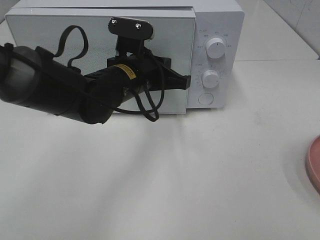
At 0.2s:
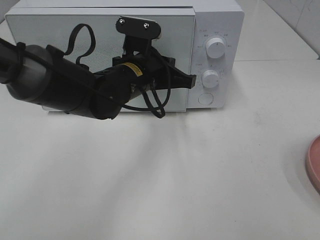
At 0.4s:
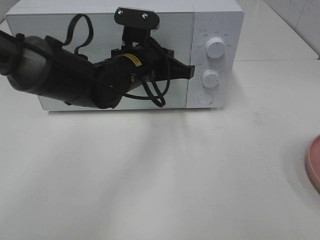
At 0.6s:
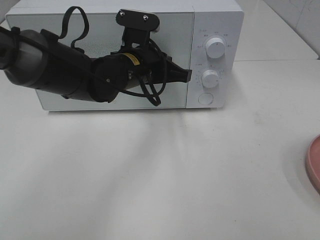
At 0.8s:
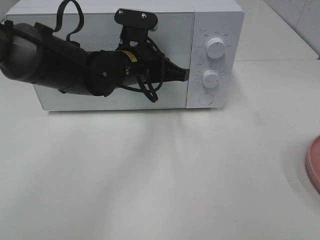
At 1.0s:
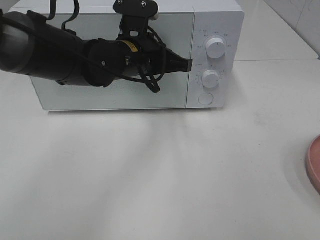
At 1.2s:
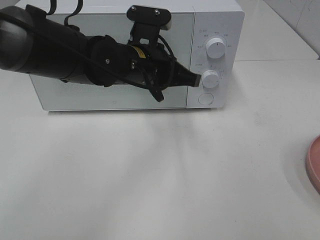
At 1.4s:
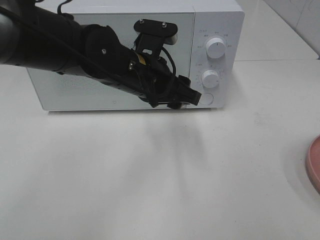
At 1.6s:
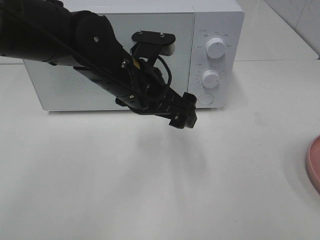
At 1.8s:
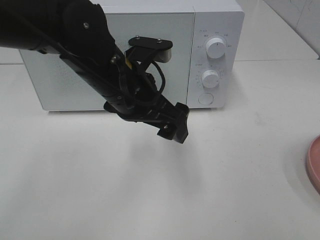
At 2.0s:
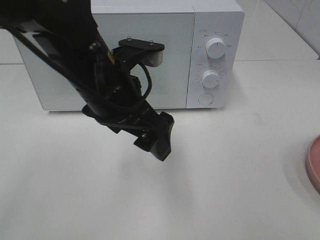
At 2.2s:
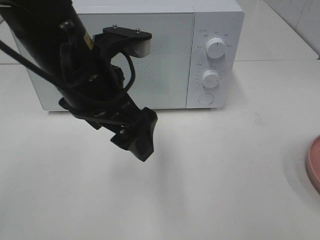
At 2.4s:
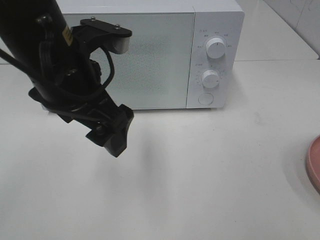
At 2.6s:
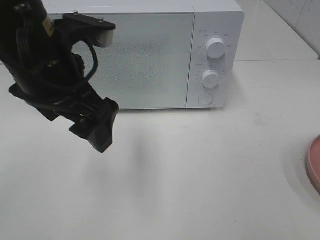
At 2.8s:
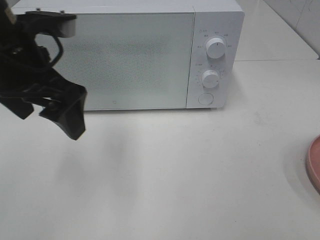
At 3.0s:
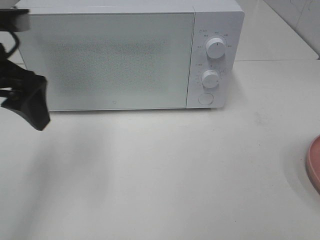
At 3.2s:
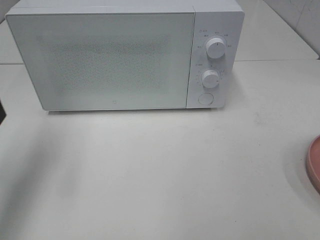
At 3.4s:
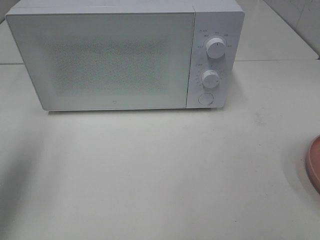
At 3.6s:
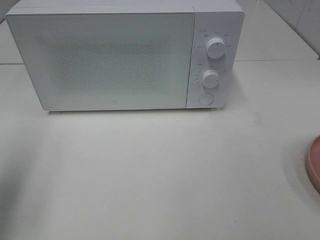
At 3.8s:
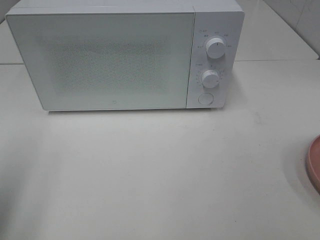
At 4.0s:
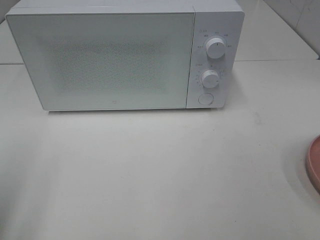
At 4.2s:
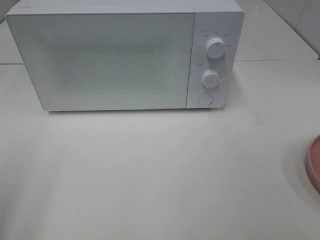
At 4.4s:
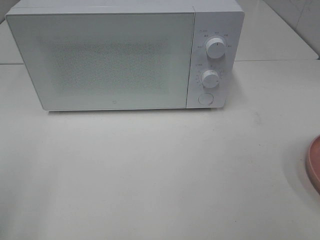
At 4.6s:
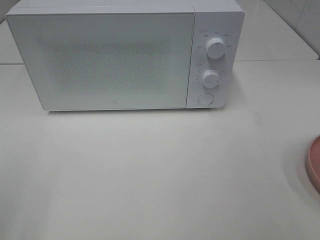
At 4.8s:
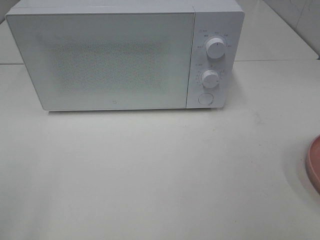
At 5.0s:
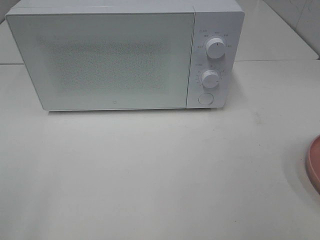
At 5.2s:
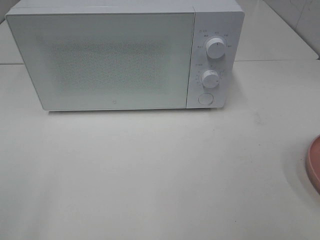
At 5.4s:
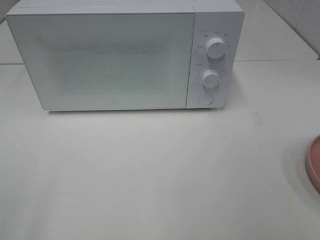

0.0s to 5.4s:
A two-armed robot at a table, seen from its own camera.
Task of the whole recording: Heat the burger.
0.0s to 1.4s: The left gripper opens.
1.4s to 2.8s: The left gripper moves to the left and upward, some 15 cm, and opens.
2.8s to 4.0s: The left gripper travels to the left and backward by approximately 20 cm.

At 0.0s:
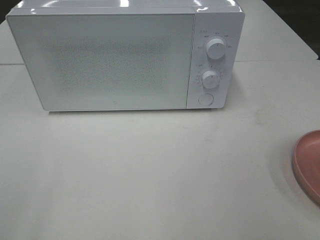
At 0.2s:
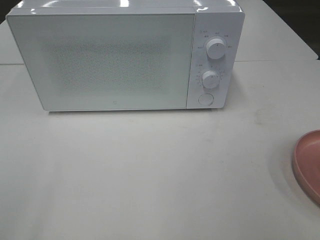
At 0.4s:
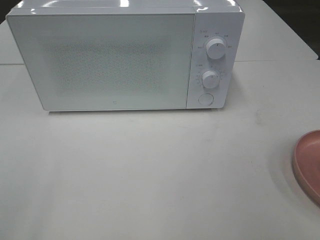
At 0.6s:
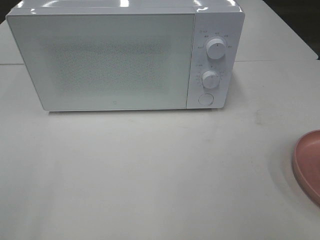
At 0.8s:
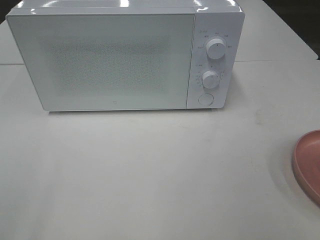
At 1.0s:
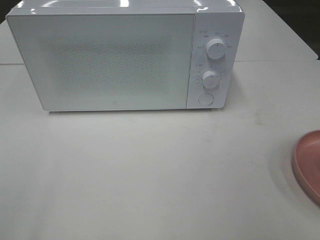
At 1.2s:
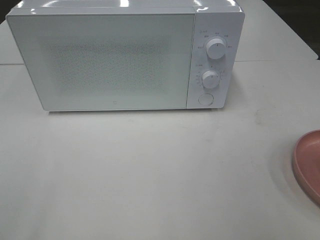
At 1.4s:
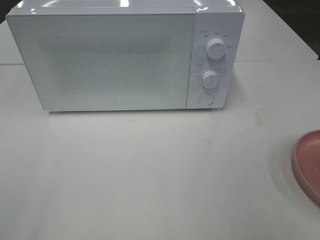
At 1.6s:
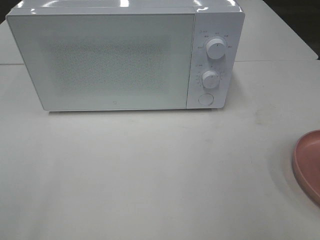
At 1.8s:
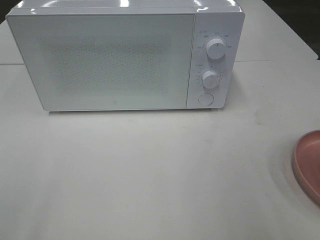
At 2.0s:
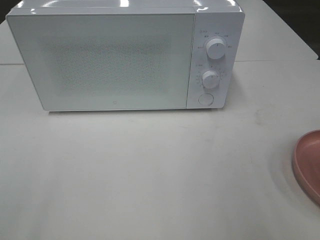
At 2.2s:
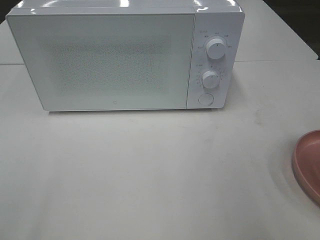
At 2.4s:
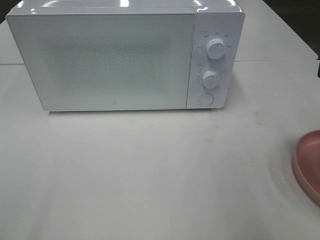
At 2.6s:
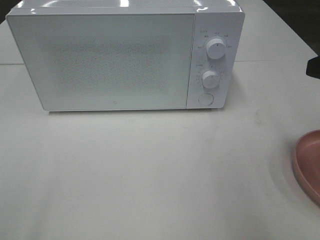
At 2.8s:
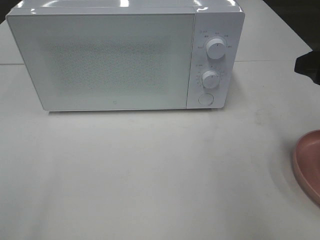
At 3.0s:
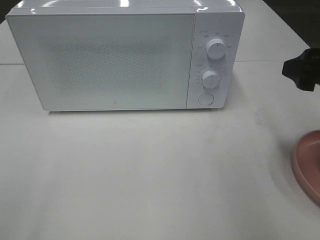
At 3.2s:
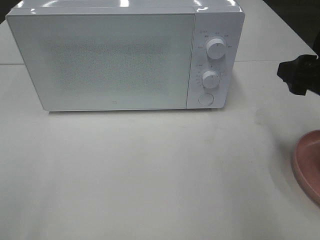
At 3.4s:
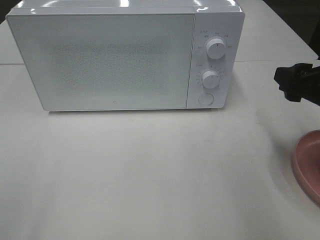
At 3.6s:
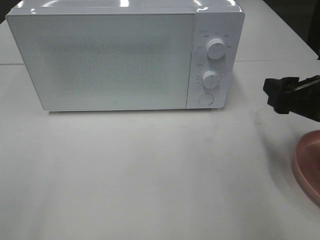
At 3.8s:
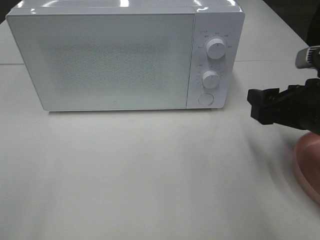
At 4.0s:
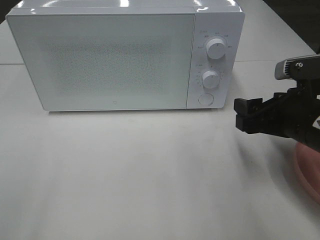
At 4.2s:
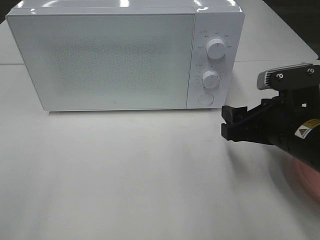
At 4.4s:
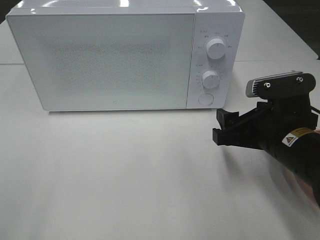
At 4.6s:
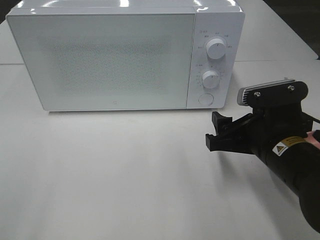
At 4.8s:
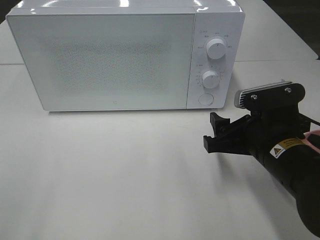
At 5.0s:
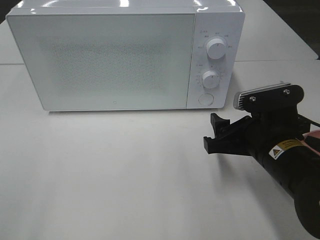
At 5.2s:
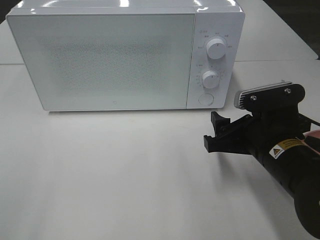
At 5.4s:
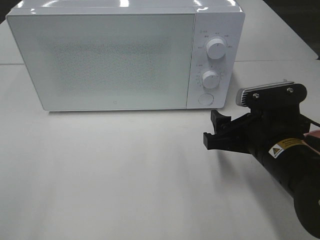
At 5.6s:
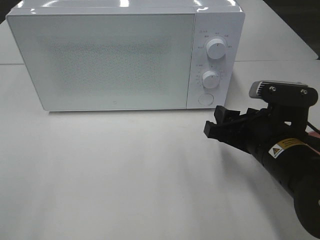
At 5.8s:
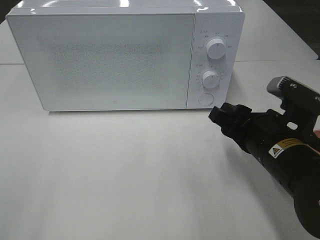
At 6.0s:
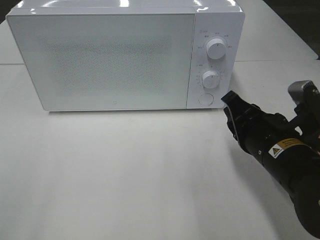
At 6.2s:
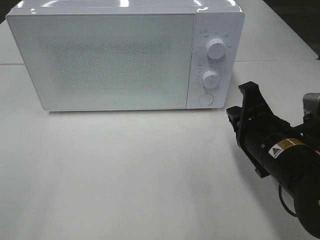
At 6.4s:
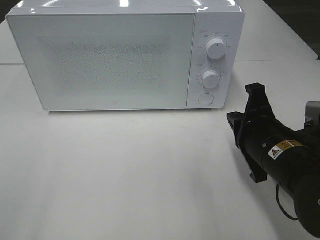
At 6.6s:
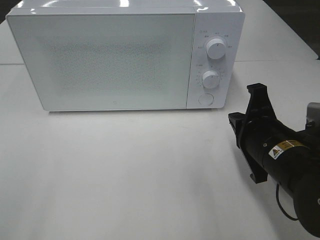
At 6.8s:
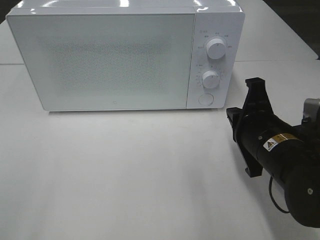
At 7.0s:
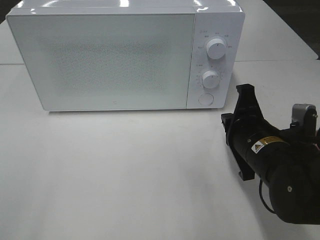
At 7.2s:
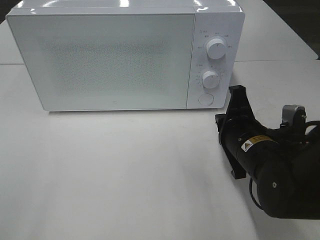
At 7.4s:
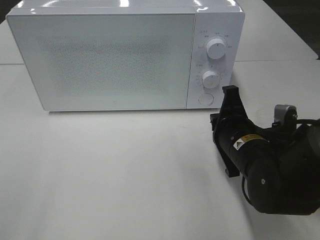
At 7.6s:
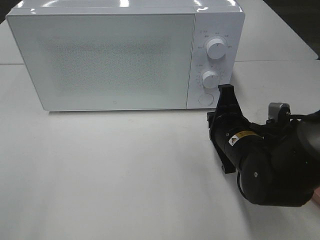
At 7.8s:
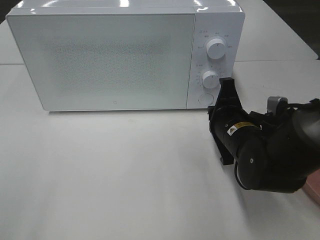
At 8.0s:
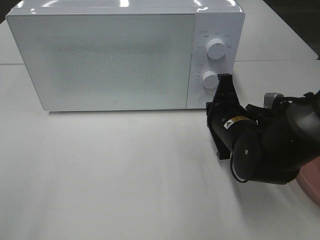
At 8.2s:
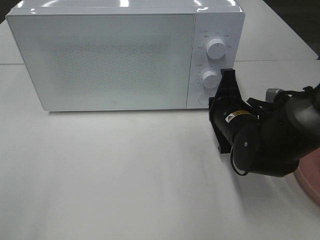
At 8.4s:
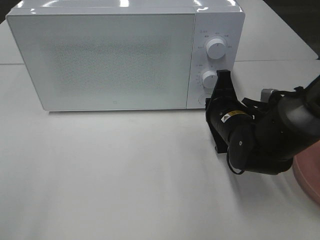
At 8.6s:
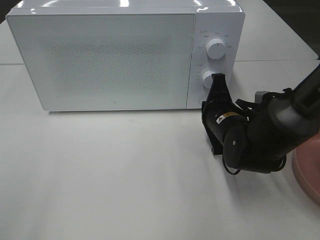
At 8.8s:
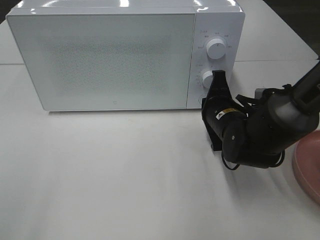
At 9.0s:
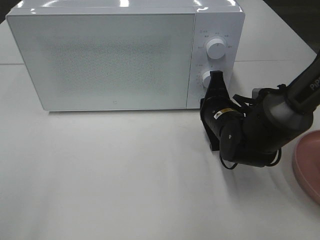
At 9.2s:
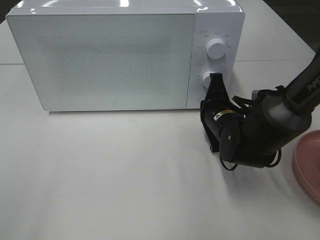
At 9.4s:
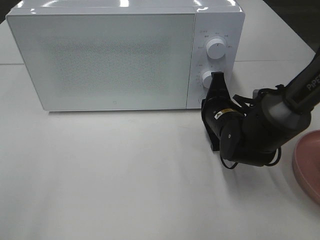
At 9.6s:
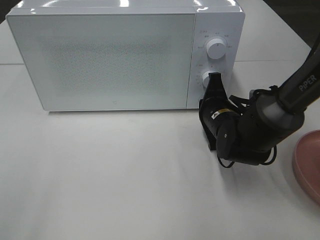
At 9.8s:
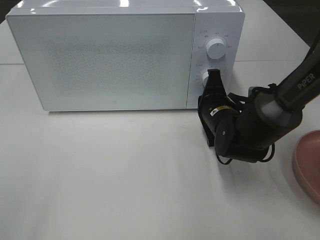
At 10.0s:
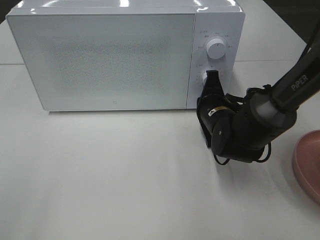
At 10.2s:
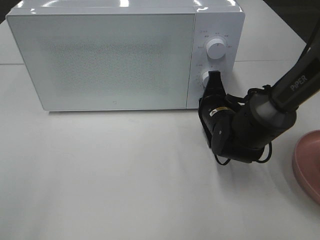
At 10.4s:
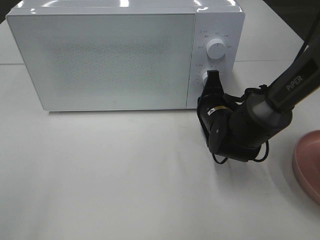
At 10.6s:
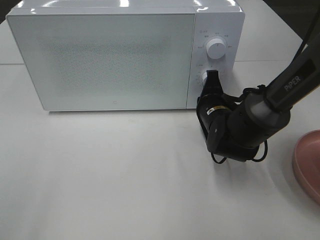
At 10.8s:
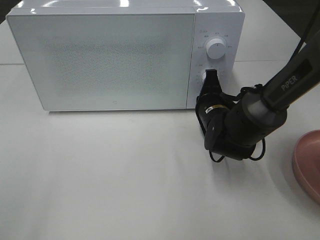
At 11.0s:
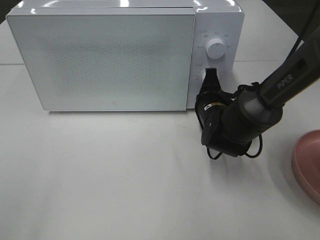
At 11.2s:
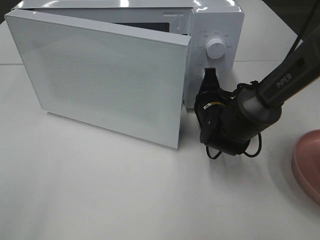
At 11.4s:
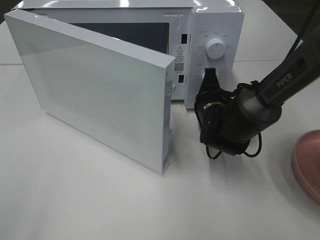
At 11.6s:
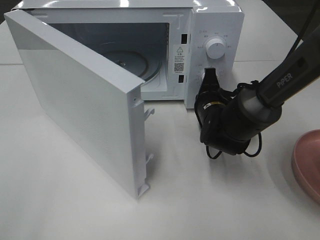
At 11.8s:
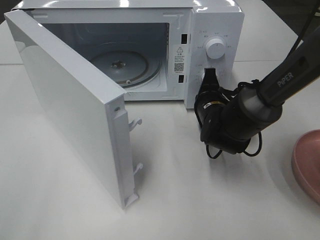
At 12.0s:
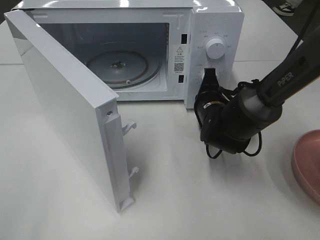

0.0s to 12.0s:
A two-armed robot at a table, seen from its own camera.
Task of the whole recording: Heat the burger.
1.6s to 3.0s: The right gripper travels forward and downward by approximately 15 cm.
3.0s to 4.4s: The right gripper travels downward and to the left by some 15 cm.
4.4s to 6.0s: The right gripper closes up.
6.0s to 7.6s: The right gripper shifts by roughly 5 cm.
7.6s to 9.0s: The right gripper goes approximately 5 cm forward.
9.0s to 10.4s: There are only small adjustments of the grippers.

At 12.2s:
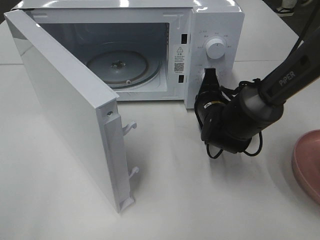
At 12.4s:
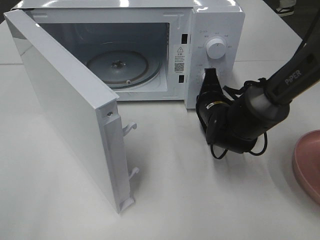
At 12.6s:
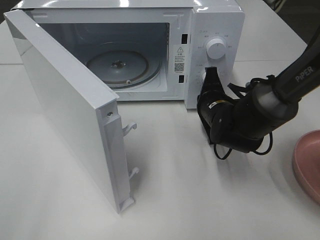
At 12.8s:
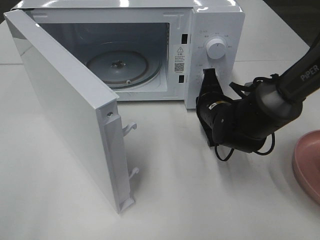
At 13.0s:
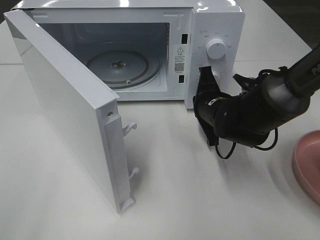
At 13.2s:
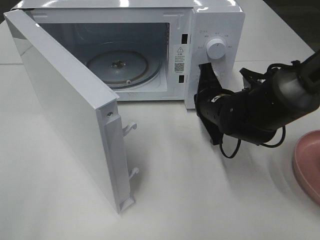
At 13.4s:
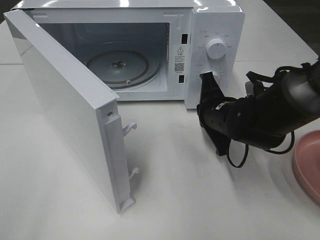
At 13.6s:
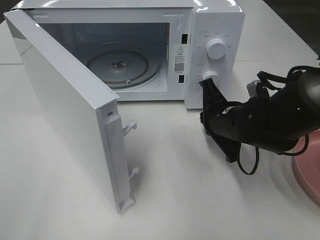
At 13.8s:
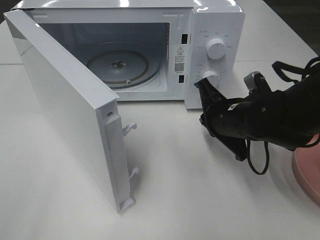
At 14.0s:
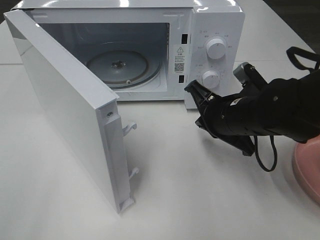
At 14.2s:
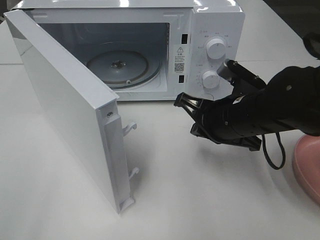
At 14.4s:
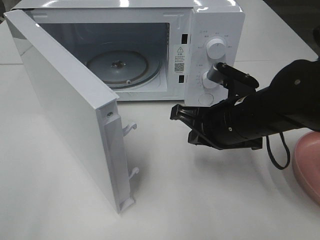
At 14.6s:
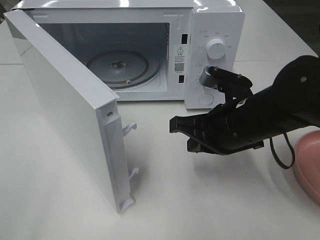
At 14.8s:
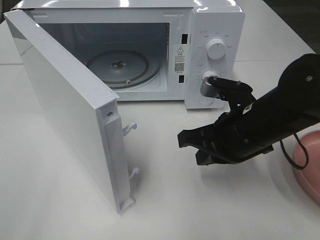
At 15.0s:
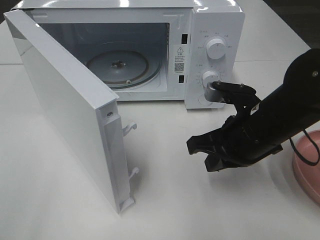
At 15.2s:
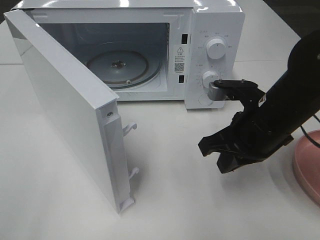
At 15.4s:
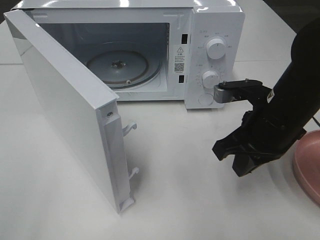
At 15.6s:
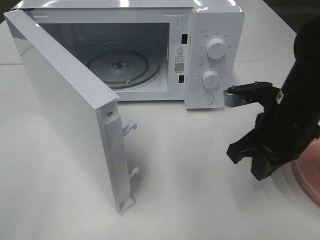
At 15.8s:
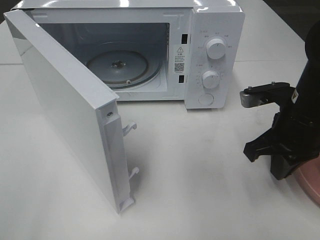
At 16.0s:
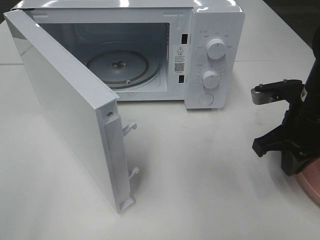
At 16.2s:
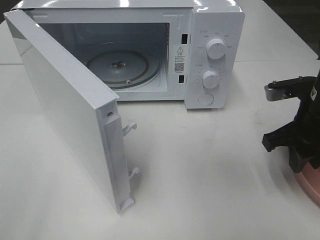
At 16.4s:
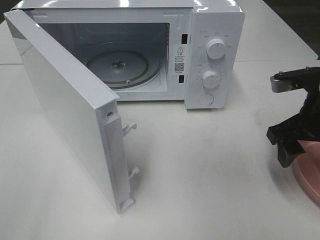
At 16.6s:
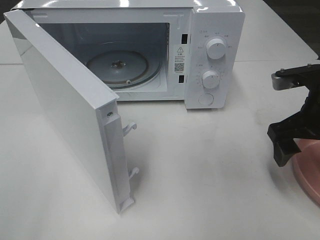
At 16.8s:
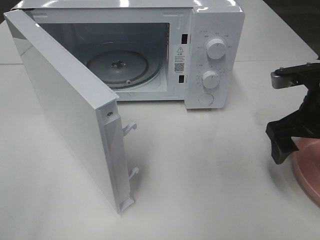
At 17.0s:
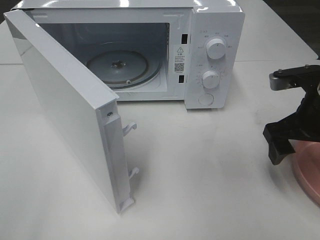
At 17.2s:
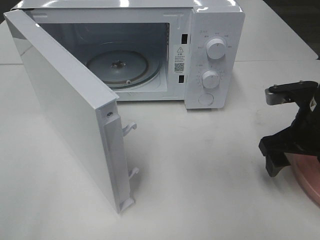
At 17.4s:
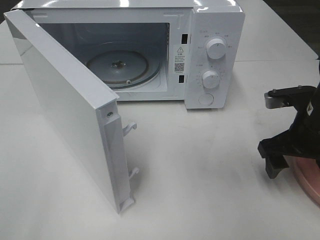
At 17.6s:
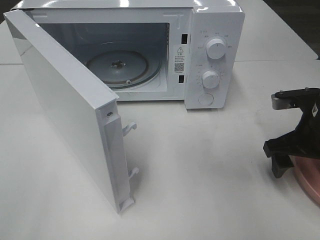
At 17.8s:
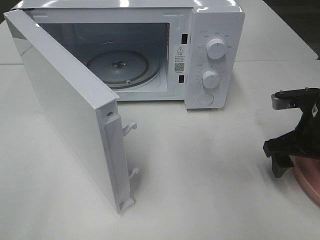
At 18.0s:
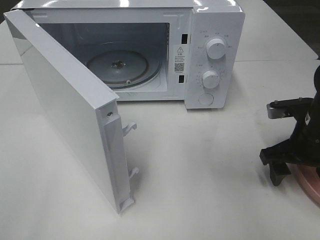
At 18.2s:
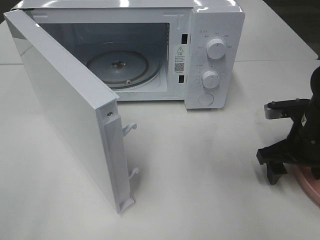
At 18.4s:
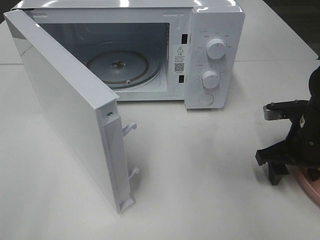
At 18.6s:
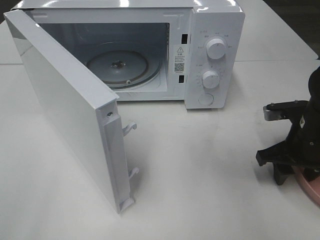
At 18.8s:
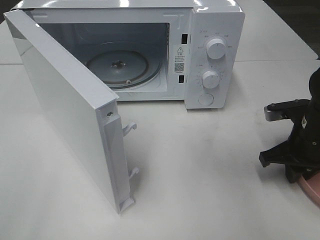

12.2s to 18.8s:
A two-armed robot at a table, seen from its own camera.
Task of the whole recording: Heat the burger.
12.2s to 13.8s: The right gripper shifts some 5 cm backward.
13.8s to 15.4s: The right gripper is displaced upward by some 5 cm.
15.4s to 17.2s: The right gripper is displaced to the right by some 5 cm, and opens its fingers.
17.2s to 18.8s: The right gripper is displaced downward by about 5 cm, and closes up.
